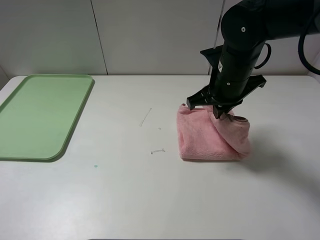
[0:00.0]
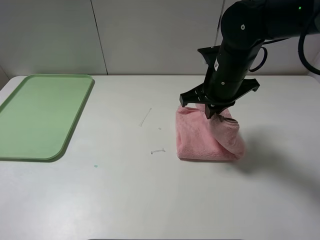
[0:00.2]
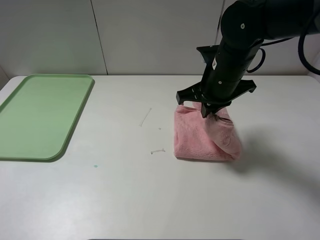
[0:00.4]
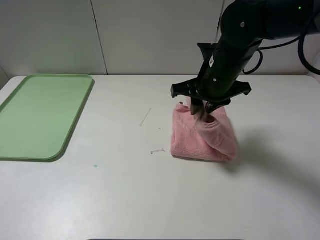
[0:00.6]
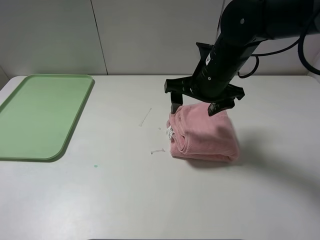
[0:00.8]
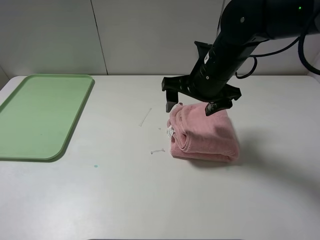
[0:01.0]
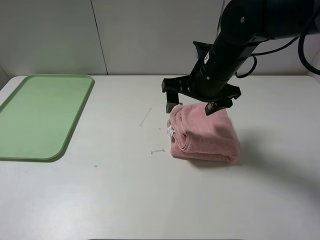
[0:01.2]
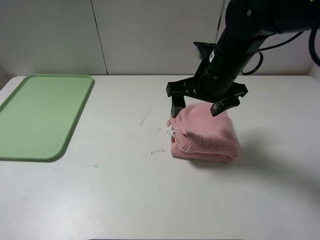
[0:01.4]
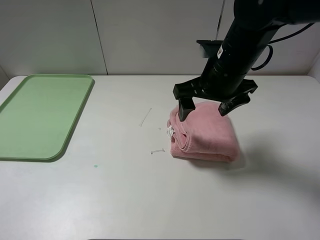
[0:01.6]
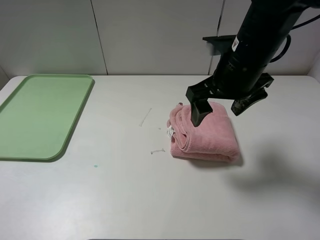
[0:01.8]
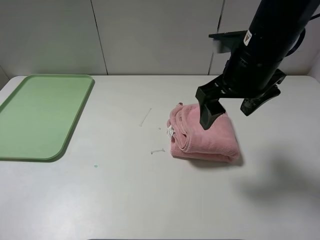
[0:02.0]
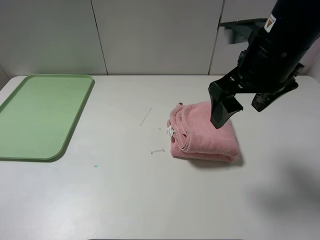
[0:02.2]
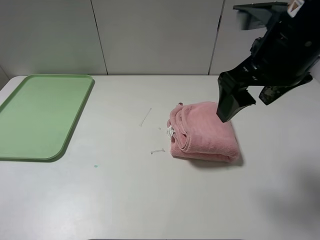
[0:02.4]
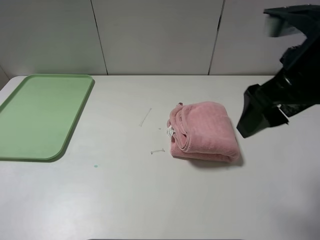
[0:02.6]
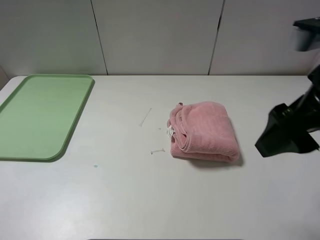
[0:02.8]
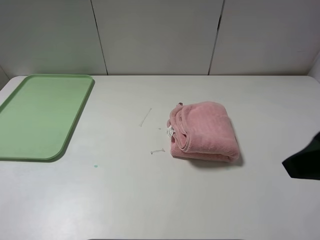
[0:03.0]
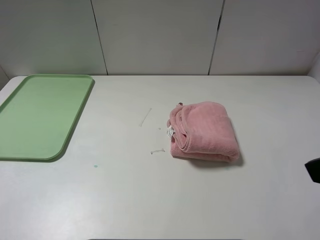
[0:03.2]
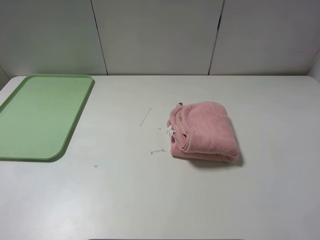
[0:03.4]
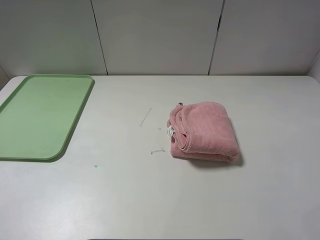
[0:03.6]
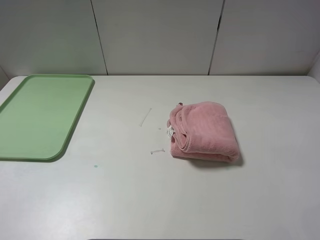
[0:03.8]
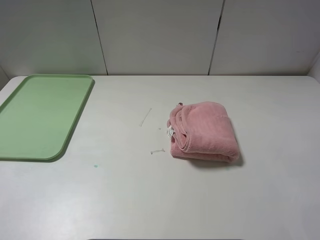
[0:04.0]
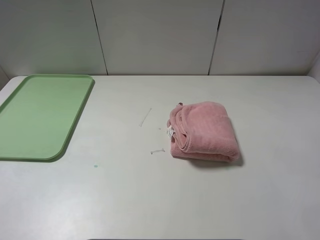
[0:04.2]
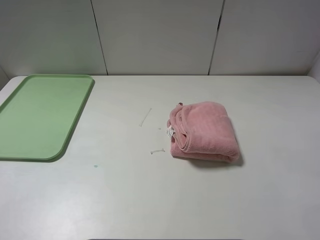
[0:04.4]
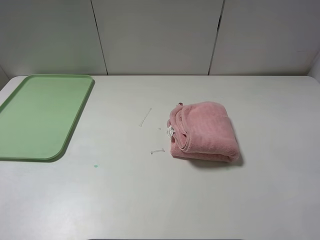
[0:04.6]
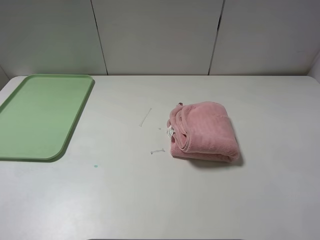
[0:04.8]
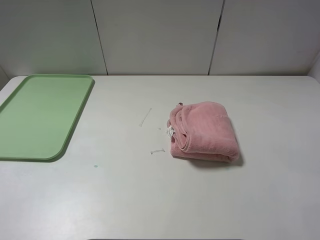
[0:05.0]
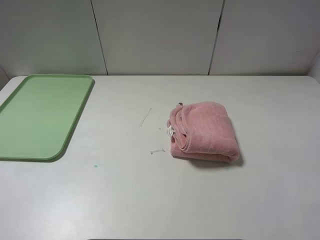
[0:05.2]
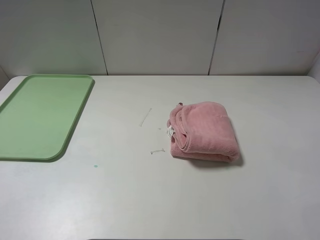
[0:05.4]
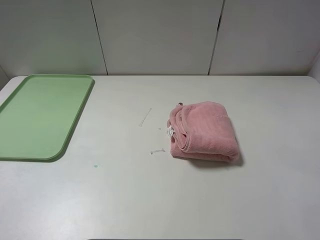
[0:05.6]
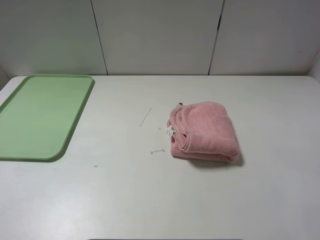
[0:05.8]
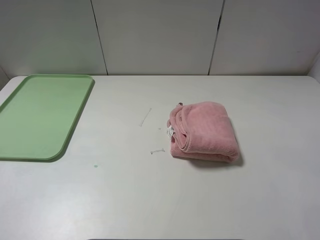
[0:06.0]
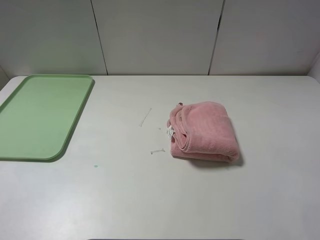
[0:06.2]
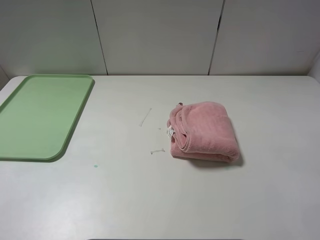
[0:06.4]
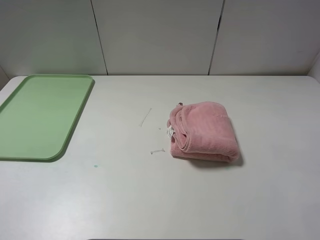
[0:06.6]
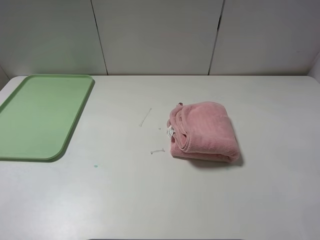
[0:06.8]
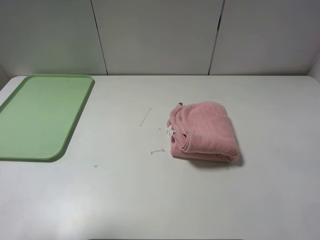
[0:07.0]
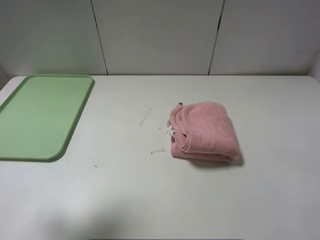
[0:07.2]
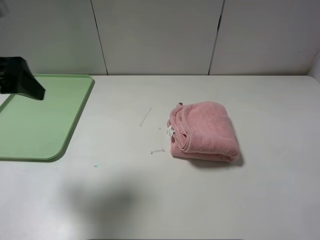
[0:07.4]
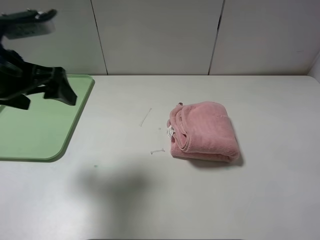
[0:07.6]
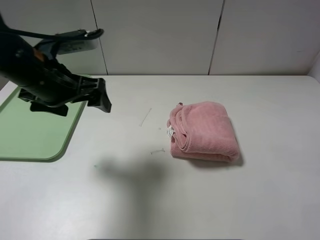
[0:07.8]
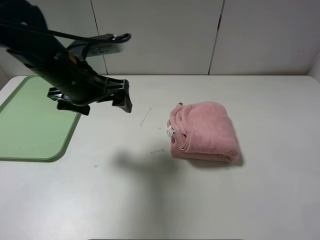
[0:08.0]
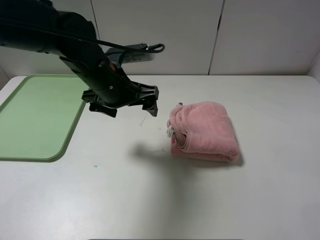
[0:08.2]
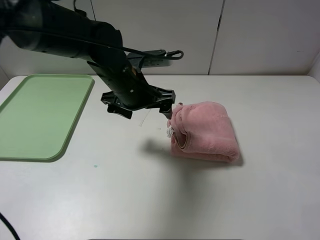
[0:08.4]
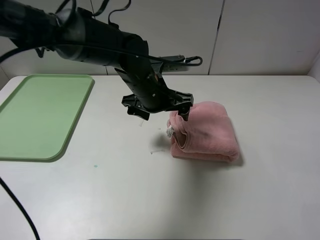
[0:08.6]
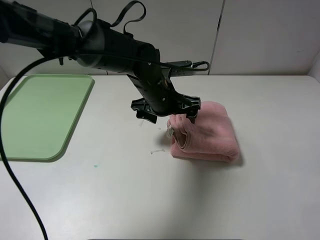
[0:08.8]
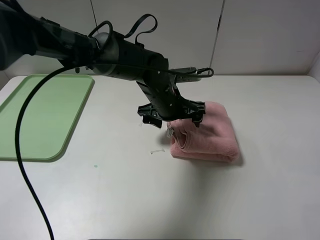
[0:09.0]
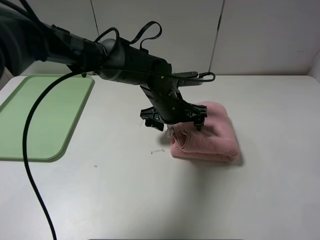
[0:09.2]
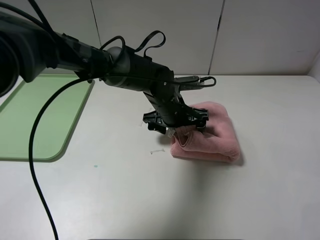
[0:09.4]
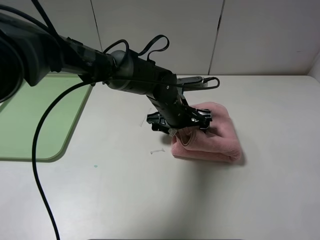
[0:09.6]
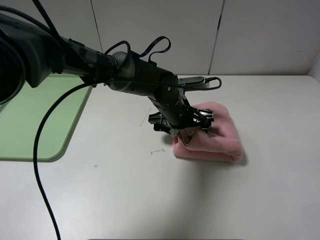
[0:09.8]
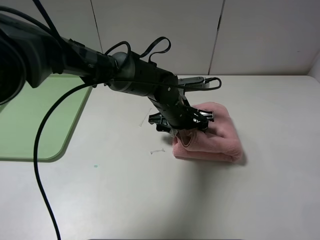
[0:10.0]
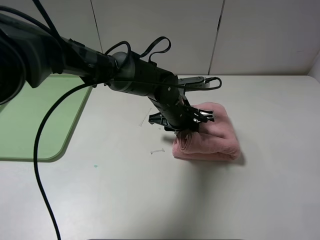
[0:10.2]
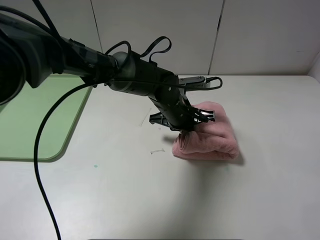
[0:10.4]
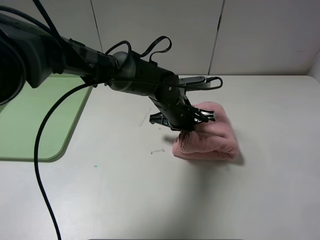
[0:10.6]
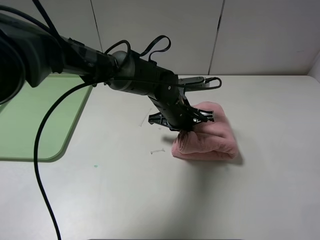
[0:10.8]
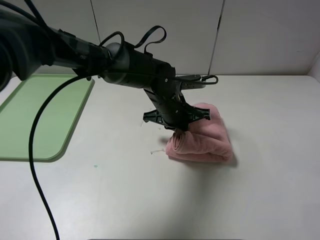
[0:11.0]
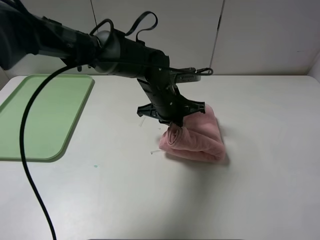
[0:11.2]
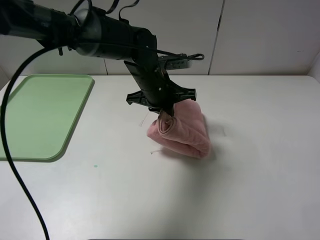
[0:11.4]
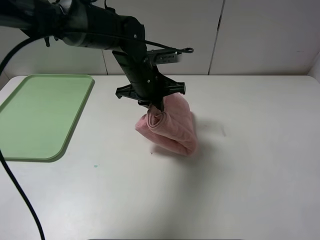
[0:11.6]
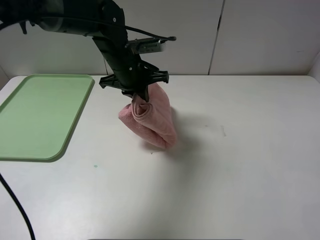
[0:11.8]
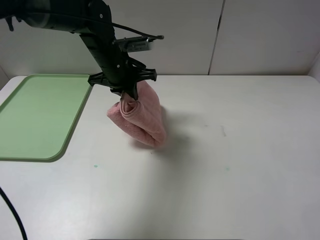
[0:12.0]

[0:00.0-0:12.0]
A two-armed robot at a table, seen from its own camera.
0:00.0 to 0:01.6: The right gripper opens.
0:01.6 to 0:03.0: The right gripper goes roughly 25 cm backward, to the right and upward.
0:03.0 to 0:04.4: The right gripper shifts about 10 cm backward and to the right.
0:04.4 to 0:06.0: Neither gripper changes place.
0:06.0 to 0:07.6: The left gripper is displaced forward by roughly 25 cm.
0:07.6 to 0:09.0: The left gripper moves to the right, downward and forward, roughly 30 cm.
0:09.0 to 0:10.4: The left gripper closes.
0:10.4 to 0:12.0: The left gripper moves to the left and upward, roughly 15 cm.

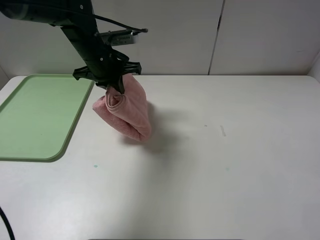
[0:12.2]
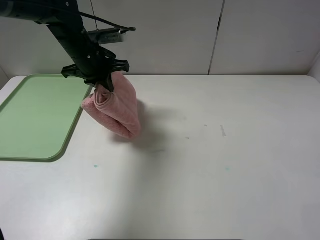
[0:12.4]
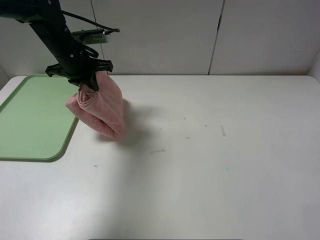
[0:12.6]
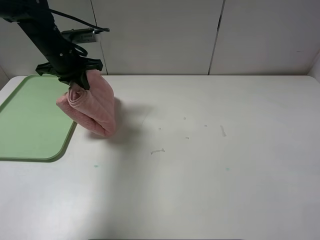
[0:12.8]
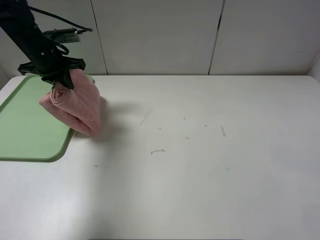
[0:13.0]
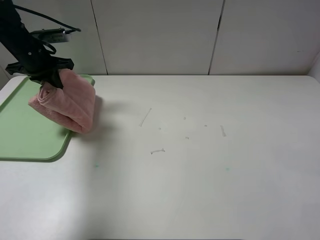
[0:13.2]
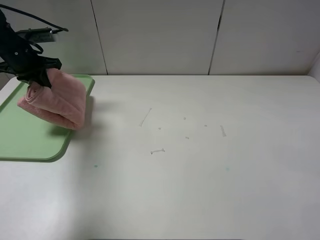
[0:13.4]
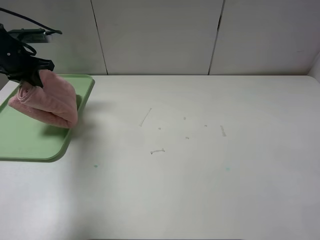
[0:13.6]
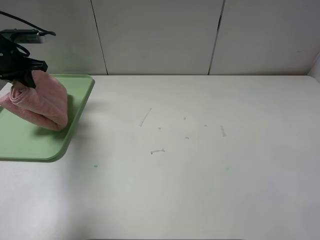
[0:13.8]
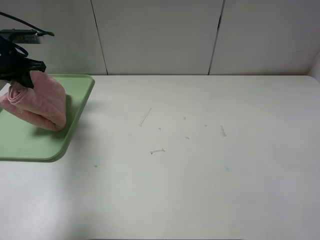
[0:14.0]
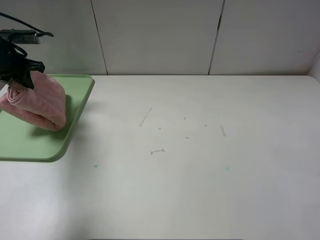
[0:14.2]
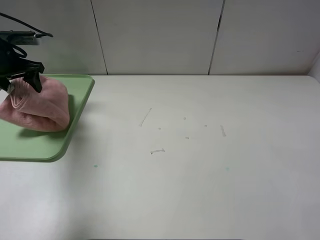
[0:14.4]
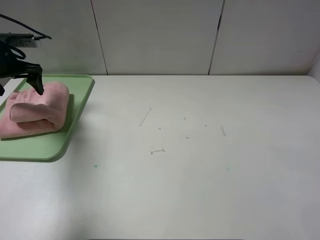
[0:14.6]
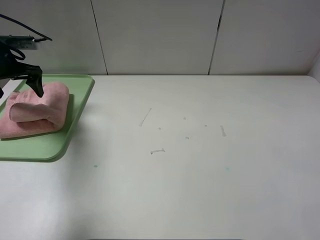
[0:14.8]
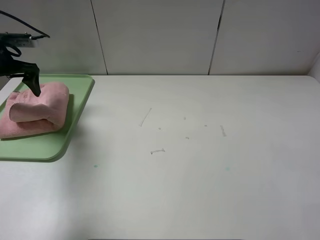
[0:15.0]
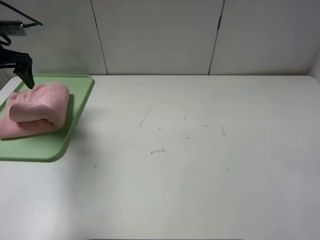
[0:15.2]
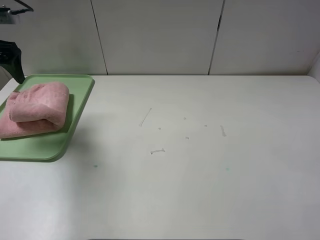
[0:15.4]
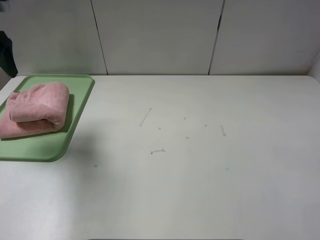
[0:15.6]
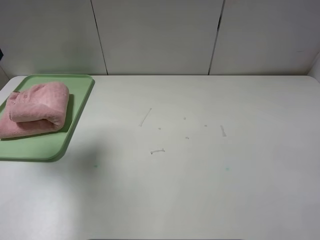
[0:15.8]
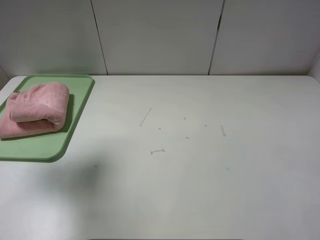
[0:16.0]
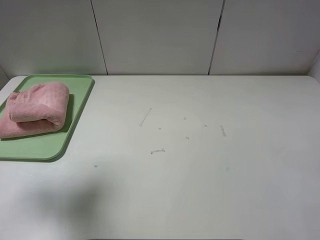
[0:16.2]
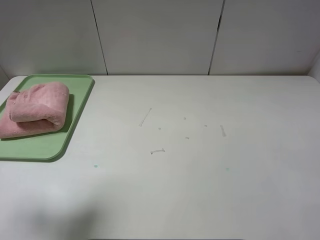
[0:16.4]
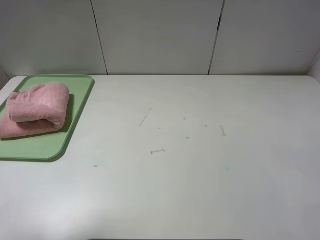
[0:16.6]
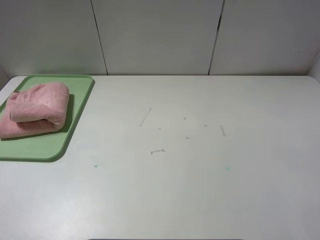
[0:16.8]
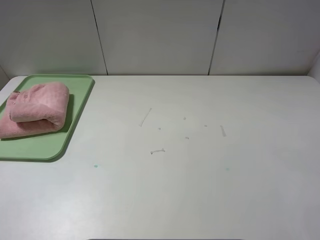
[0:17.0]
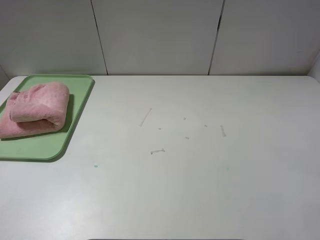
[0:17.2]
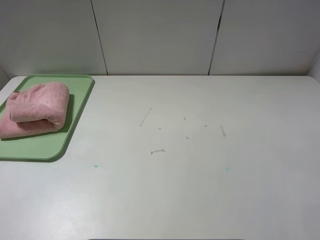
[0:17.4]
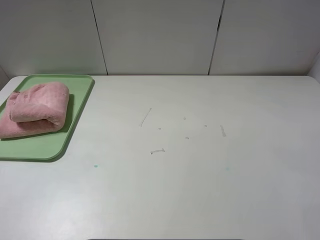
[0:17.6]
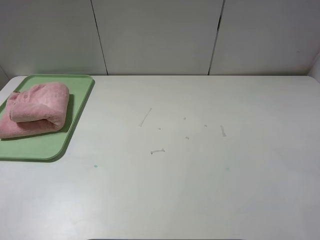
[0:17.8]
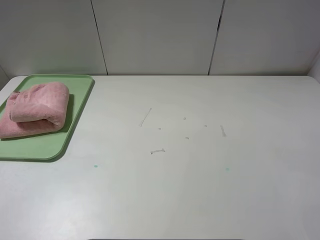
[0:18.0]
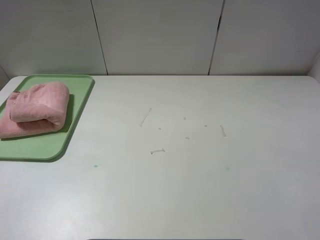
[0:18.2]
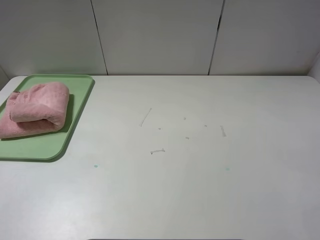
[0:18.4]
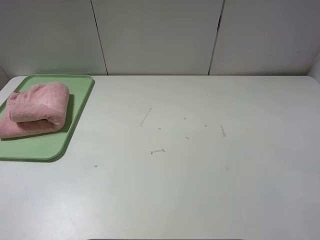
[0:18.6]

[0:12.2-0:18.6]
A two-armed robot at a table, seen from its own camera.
Step, 0:12.2 to 0:14.6: Place the folded pink towel on the tray with the left gripper.
0:12.2 to 0:13.8: The left gripper moves to the left, about 25 cm.
0:13.8 to 0:15.4: The left gripper goes about 10 cm upward and backward, and opens up.
0:15.4 to 0:17.0: The left gripper goes some 35 cm backward.
